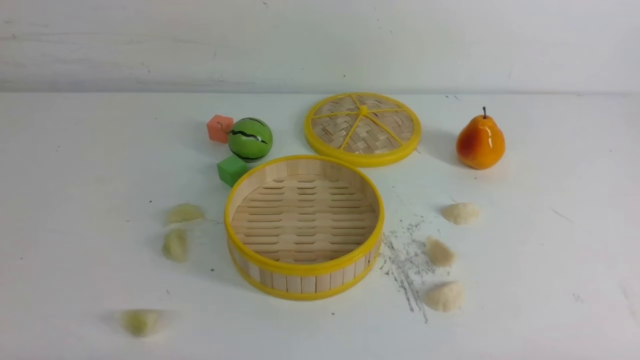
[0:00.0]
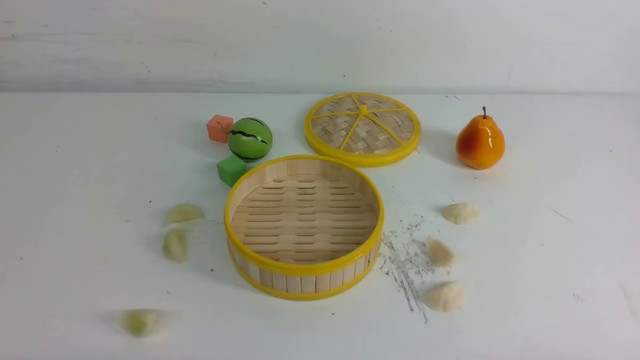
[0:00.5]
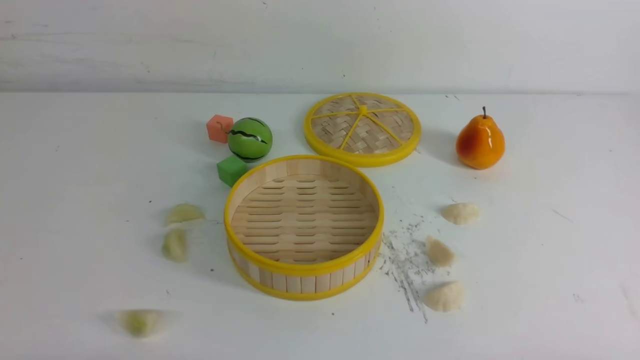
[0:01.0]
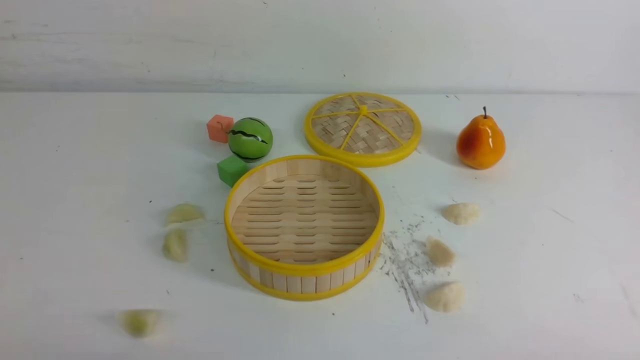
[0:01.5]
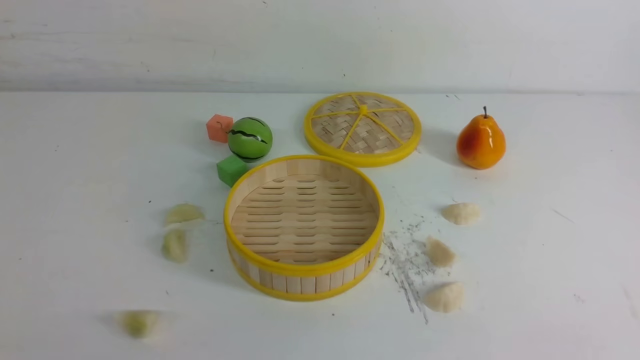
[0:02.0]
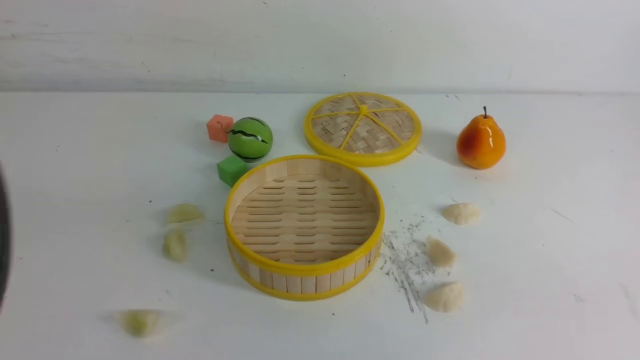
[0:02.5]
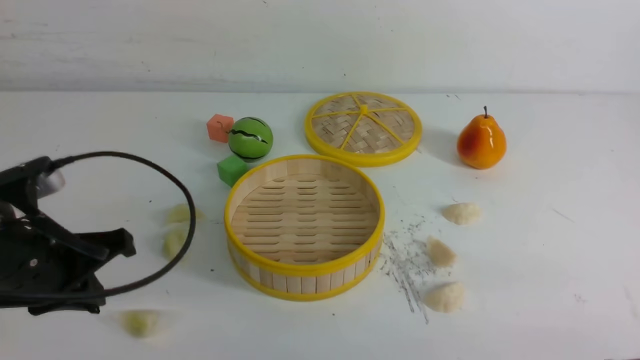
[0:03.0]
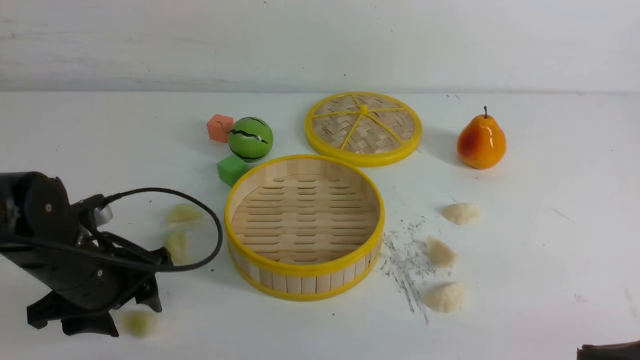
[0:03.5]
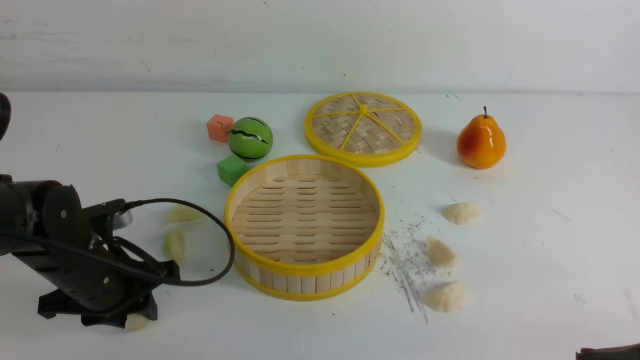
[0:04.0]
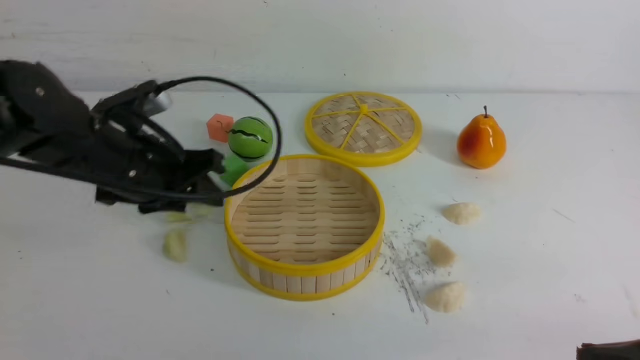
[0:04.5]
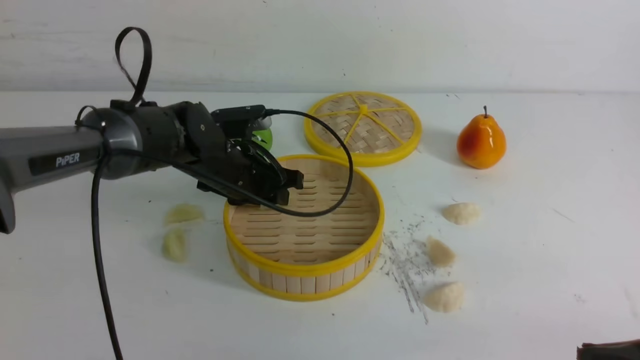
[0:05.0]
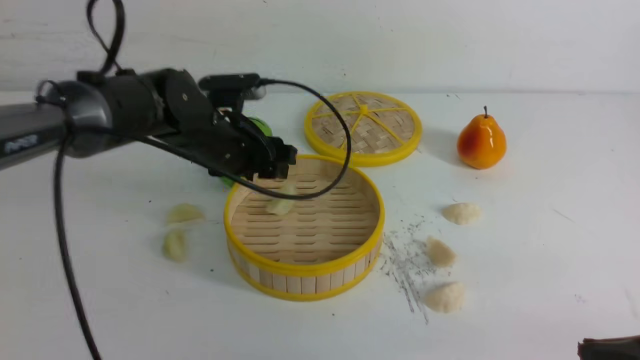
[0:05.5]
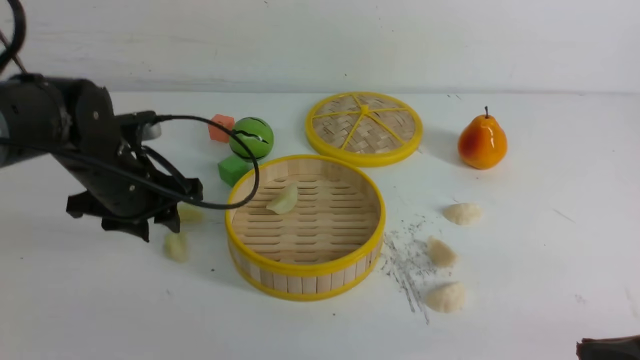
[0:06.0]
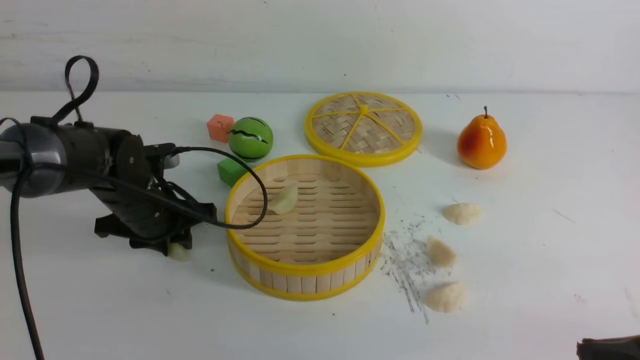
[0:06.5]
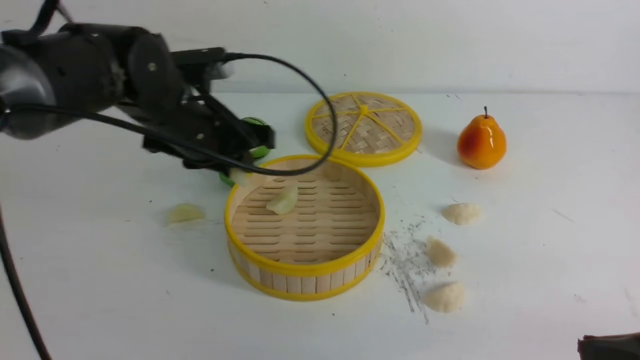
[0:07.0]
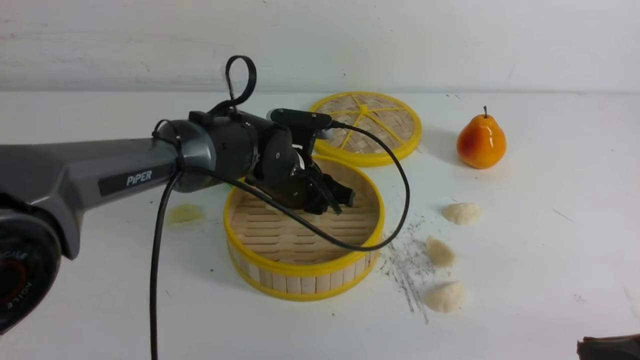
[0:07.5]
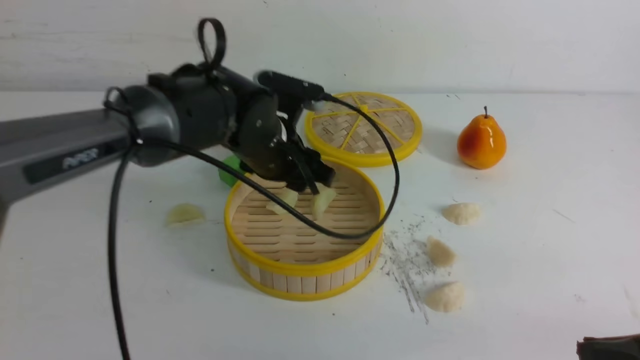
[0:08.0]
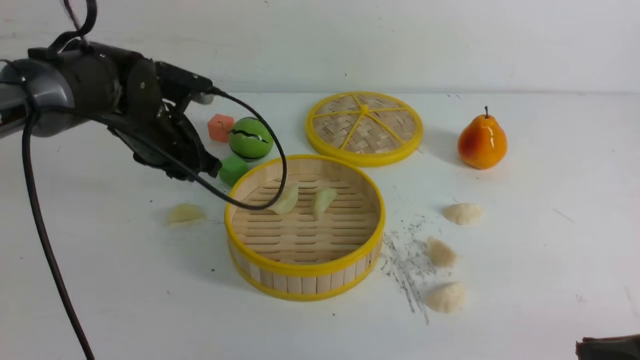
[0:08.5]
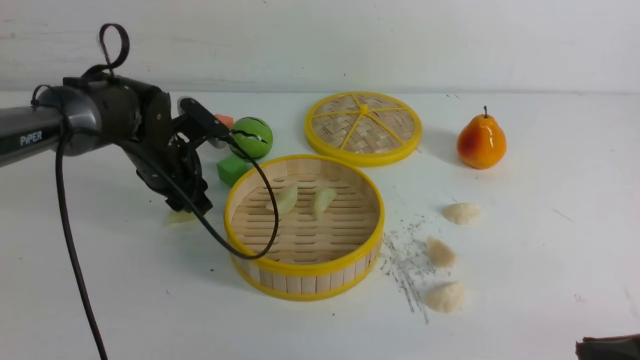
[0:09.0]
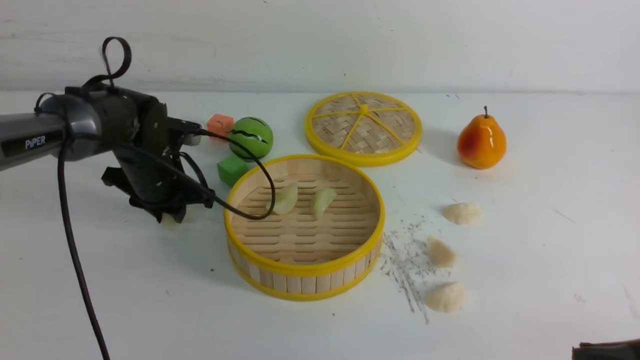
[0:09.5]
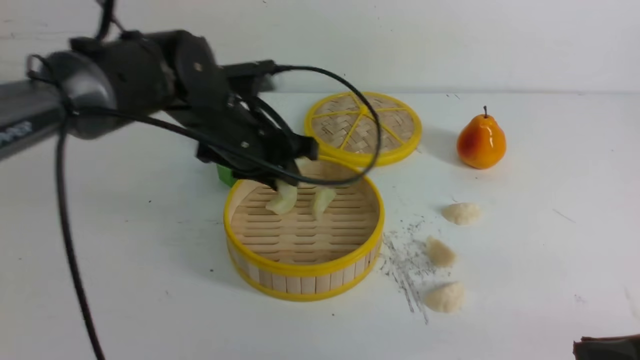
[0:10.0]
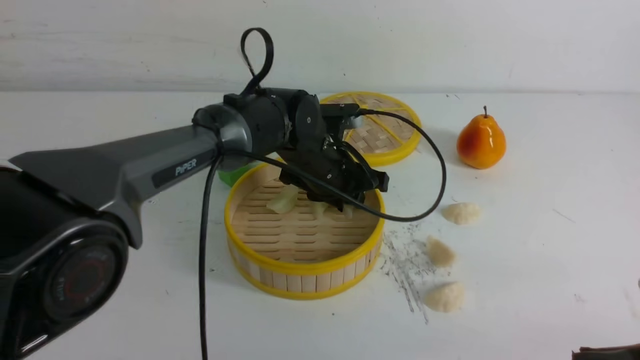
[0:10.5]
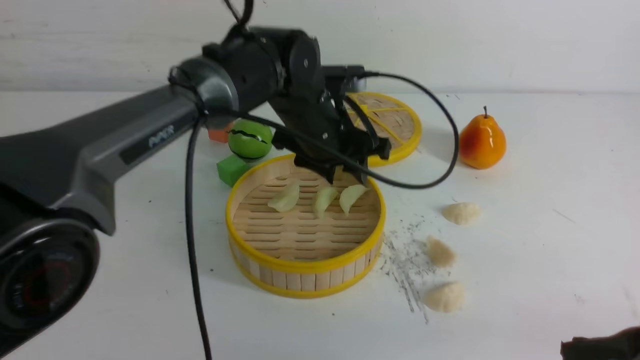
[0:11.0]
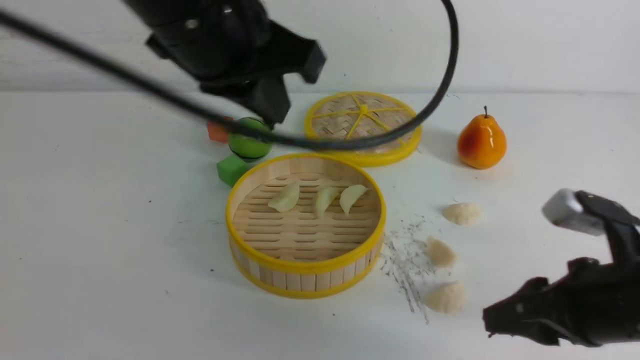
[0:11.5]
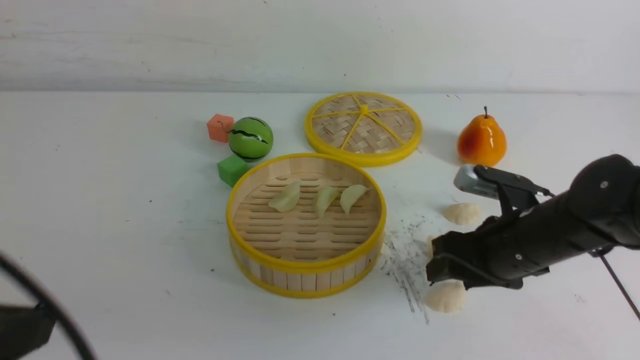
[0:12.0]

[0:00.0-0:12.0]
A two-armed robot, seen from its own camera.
Task of the whole recording: put the dumplings into the steamer on the white table.
Step, 0:00.0 to 0:04.0: use the left arm to grab a dumpling.
Step, 0:04.5 to 0:05.0: use the left arm to put the dumpling into the steamer.
Step, 0:05.5 to 0:06.5: use the left arm to grab a dumpling.
Step, 0:07.0 to 0:07.5: use the left arm to put the dumpling into the steamer.
Step, 0:08.0 to 0:09.0: use the left arm to grab a dumpling.
Step, 0:10.0 to 0:10.5: use the left arm to put the dumpling into the steamer.
0:02.0 to 0:04.0: The right gripper is displaced forward by approximately 10 cm; the left gripper heads forward and downward, covering about 30 cm, and opens its fingers.
0:04.0 to 0:06.0: The left gripper shifts roughly 10 cm forward and upward.
0:06.0 to 0:08.0: The left gripper travels to the right by about 10 cm.
0:08.0 to 0:10.0: The left gripper moves roughly 10 cm to the left and comes back, and closes.
0:10.0 to 0:12.0: The left gripper is displaced backward and to the left by about 35 cm, and closes its fingers, while the right gripper is displaced forward and to the left by about 20 cm, and opens.

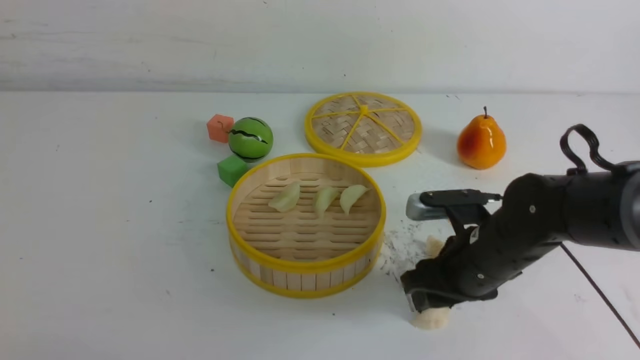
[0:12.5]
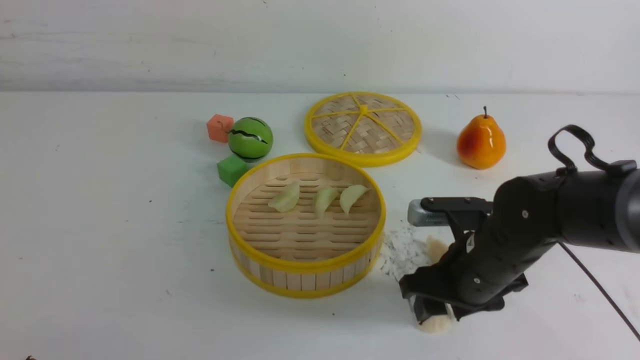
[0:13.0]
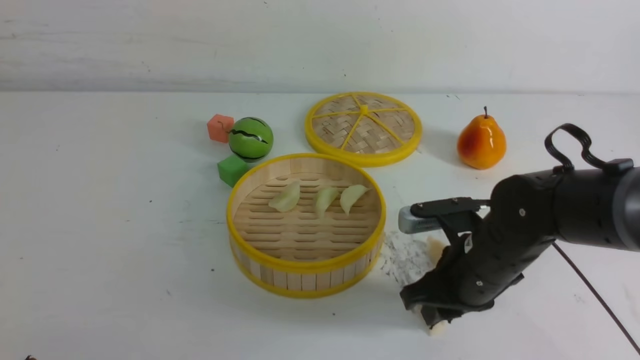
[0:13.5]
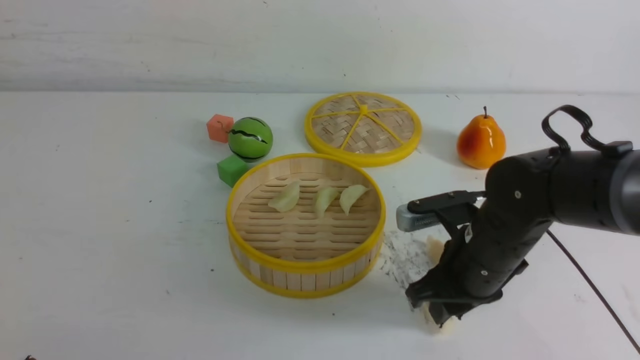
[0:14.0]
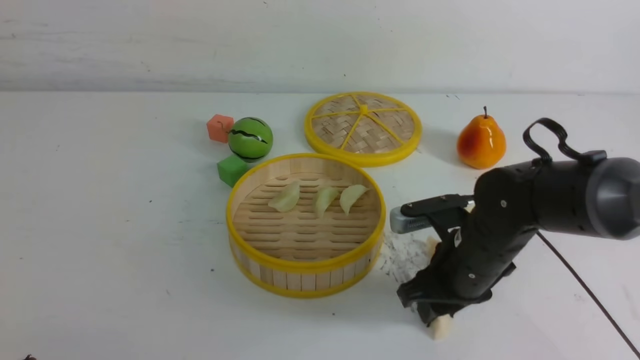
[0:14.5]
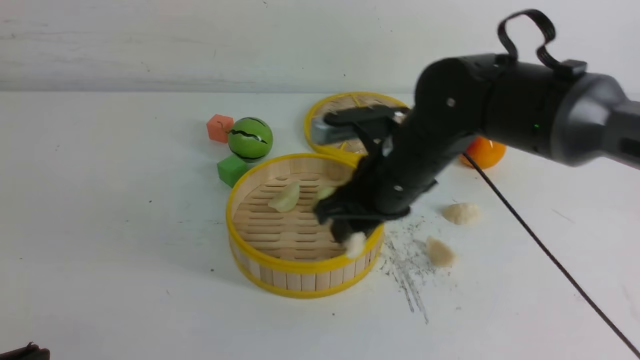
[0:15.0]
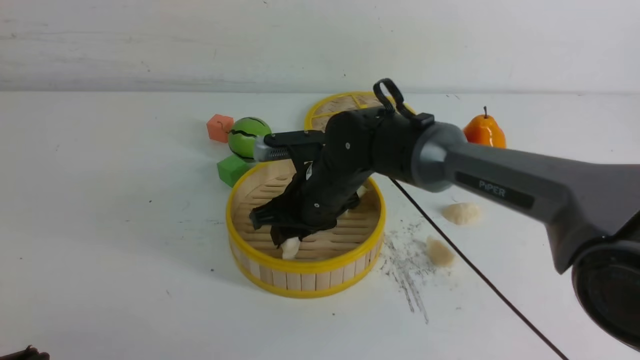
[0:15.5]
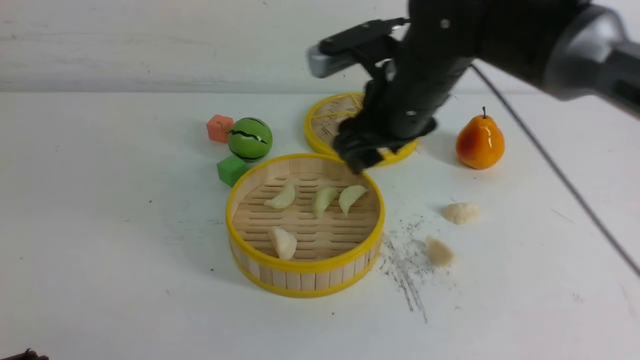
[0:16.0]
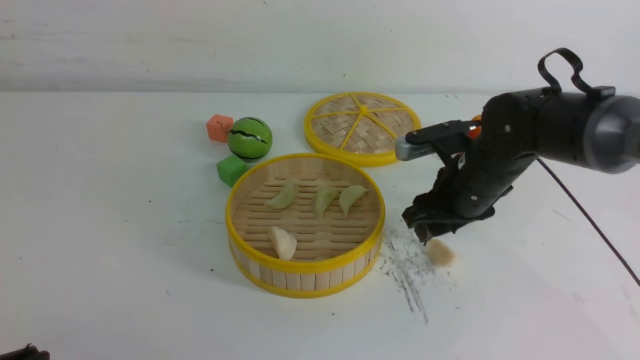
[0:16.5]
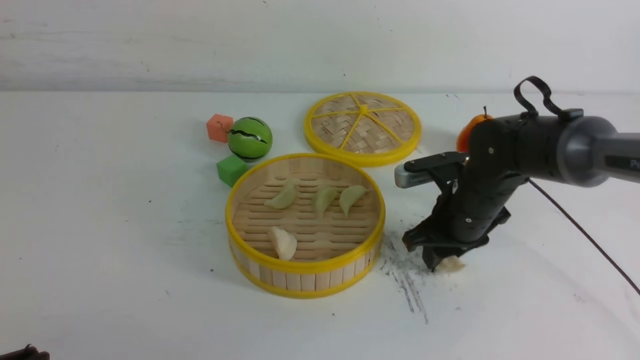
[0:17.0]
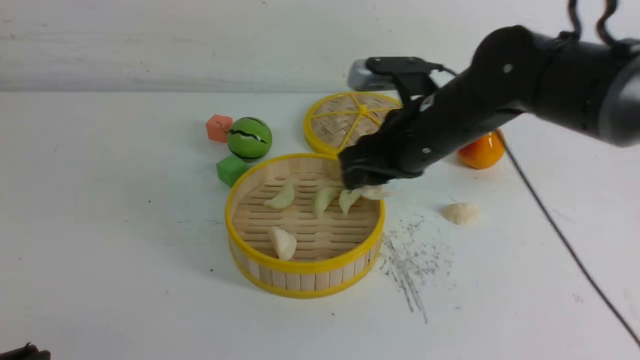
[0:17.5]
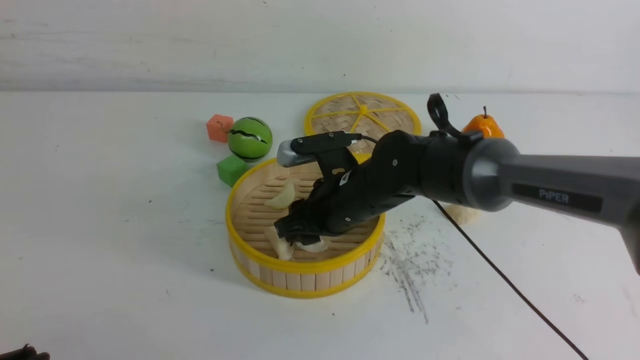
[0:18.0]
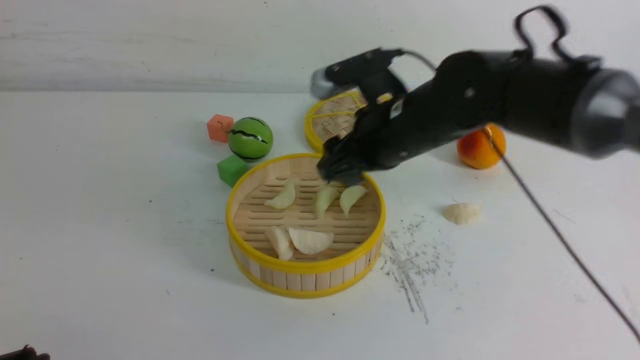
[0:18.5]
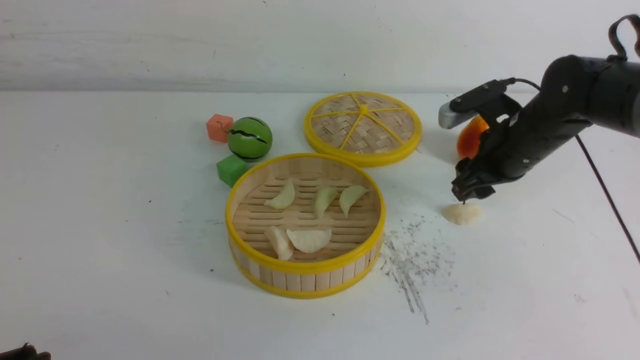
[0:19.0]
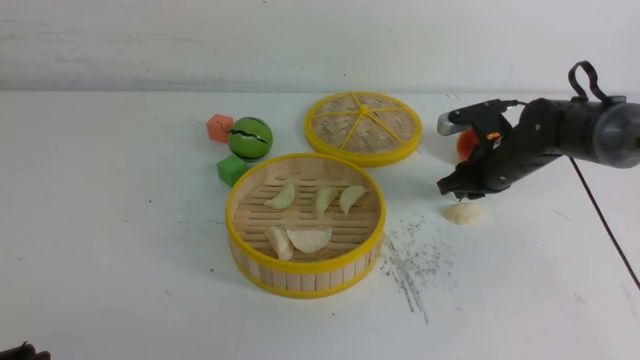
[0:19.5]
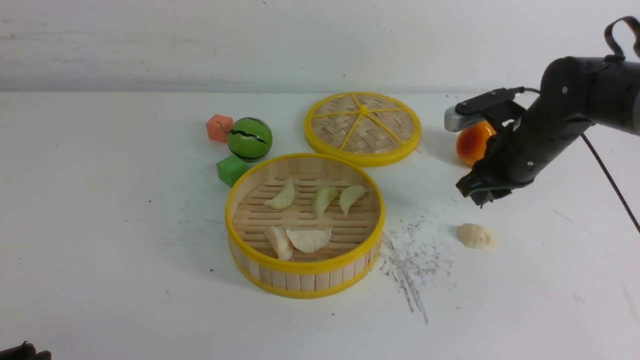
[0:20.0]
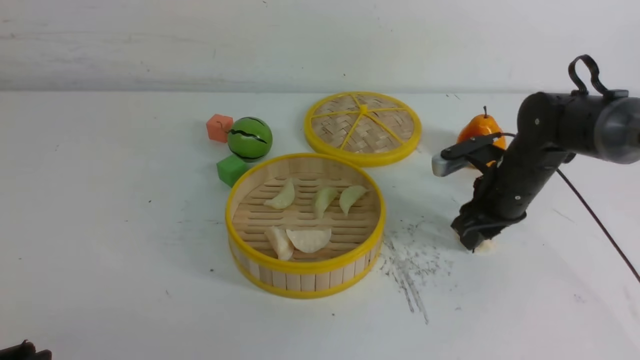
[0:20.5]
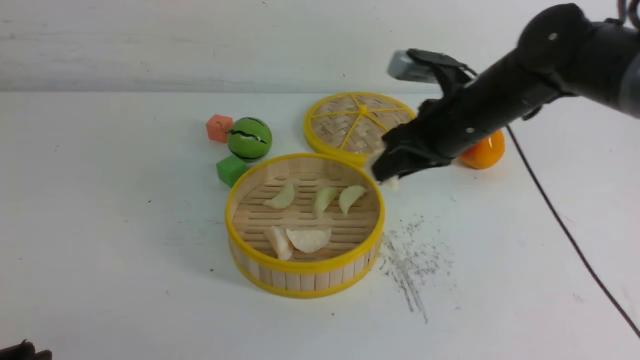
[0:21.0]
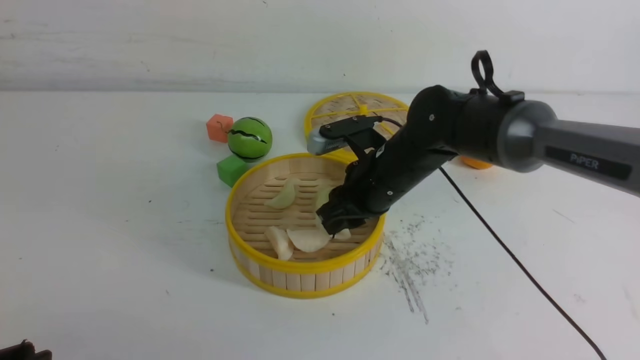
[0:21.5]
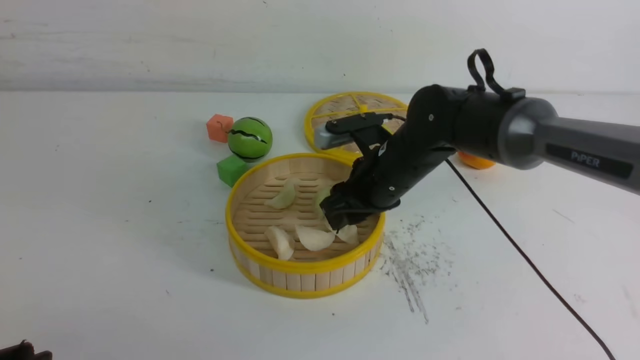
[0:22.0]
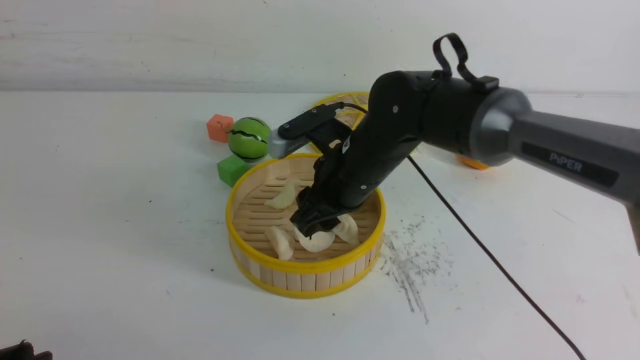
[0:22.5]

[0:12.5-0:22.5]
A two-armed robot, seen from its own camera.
Task of the whole recording: put the dumplings into the steamer on the white table.
Step, 0:12.5 to 0:14.5: use the right arm to grab a dumpling.
Step, 0:15.0 to 0:15.5: use the right arm to put the dumpling into the steamer.
Step, 0:16.0 to 0:17.0: use the right arm to grab a dumpling.
Step, 0:17.5 to 0:18.0: use the right arm to put the dumpling into the steamer.
Step, 0:18.5 to 0:20.5: use the right arm to grab a dumpling.
Step, 0:21.0 to 0:22.0: use the right arm to put the dumpling into the steamer.
0:12.5 to 0:14.5: The grippers stay close to where they were, moving slightly.
0:14.5 to 0:16.5: The right gripper heads forward, covering approximately 5 cm, and travels to the left and back again, about 15 cm each way.
0:16.5 to 0:18.5: The right gripper travels upward and to the left by some 10 cm.
0:18.5 to 0:20.5: The right gripper moves to the right and downward, about 15 cm, and closes up.
0:20.5 to 0:22.5: The right gripper shifts approximately 20 cm to the left.
